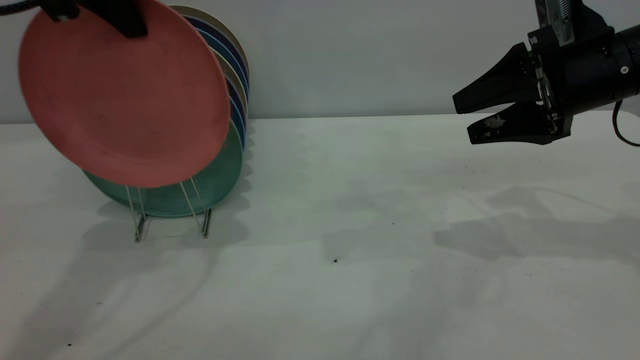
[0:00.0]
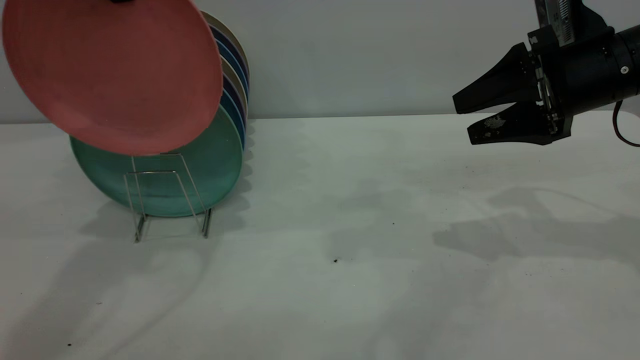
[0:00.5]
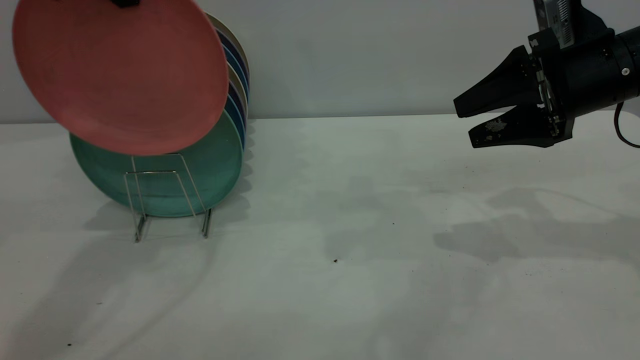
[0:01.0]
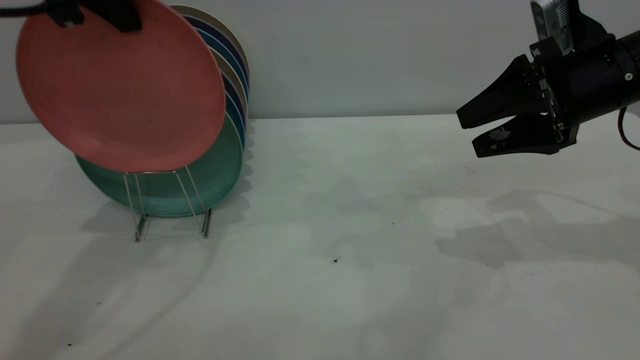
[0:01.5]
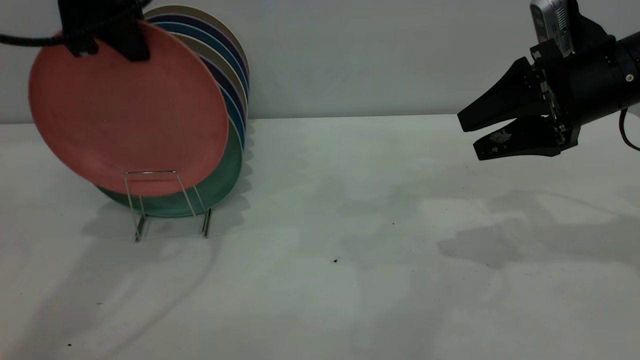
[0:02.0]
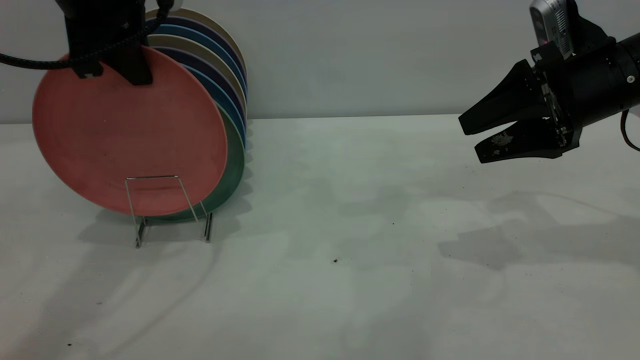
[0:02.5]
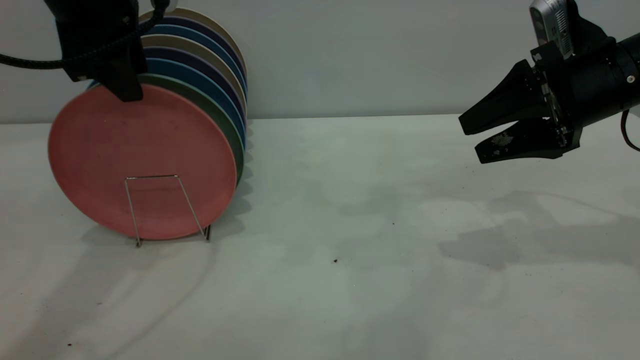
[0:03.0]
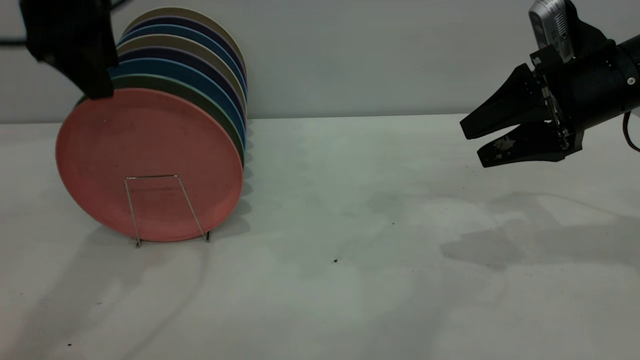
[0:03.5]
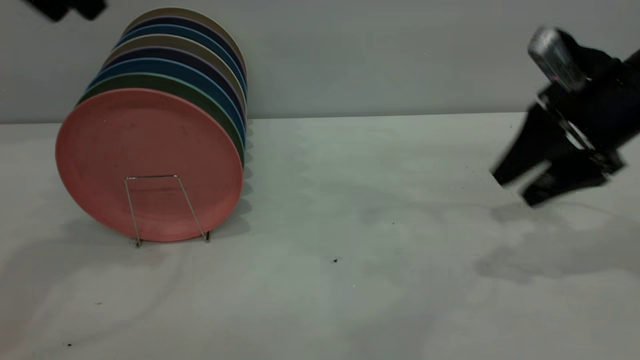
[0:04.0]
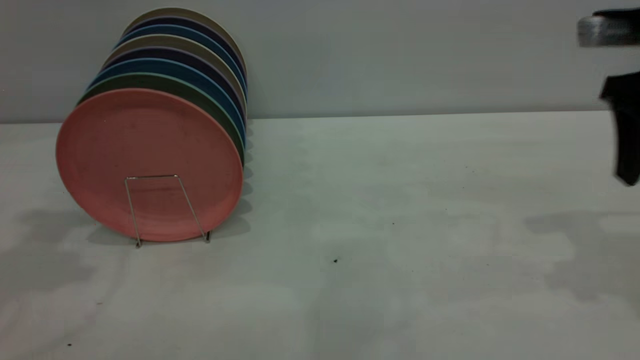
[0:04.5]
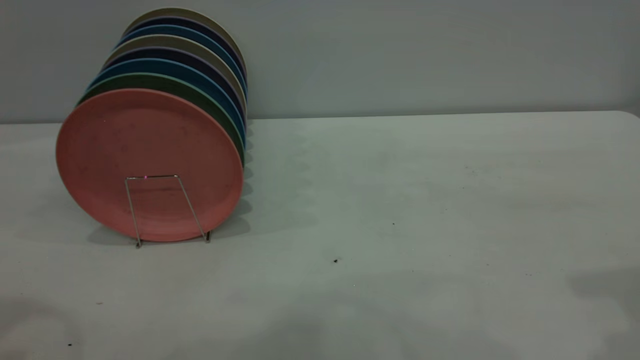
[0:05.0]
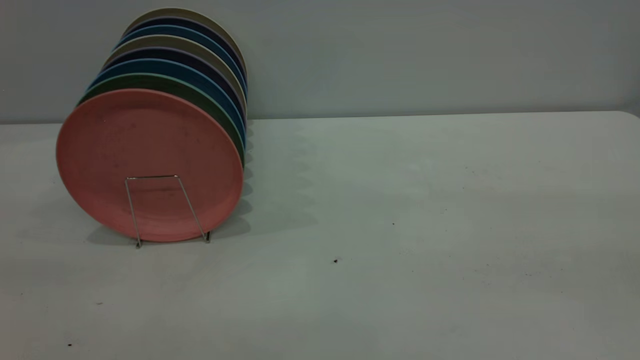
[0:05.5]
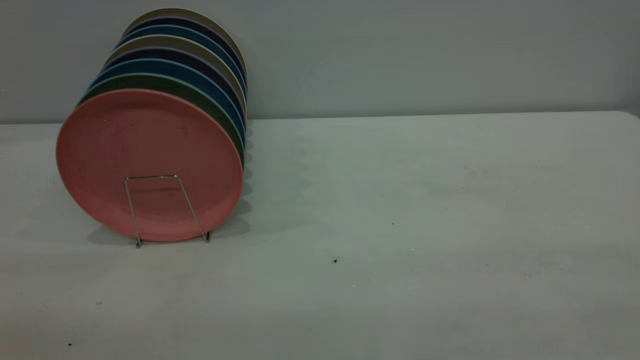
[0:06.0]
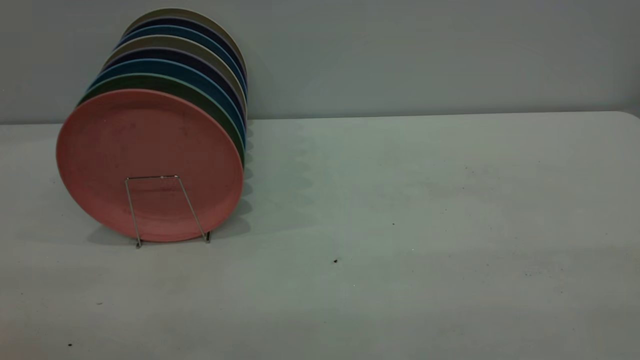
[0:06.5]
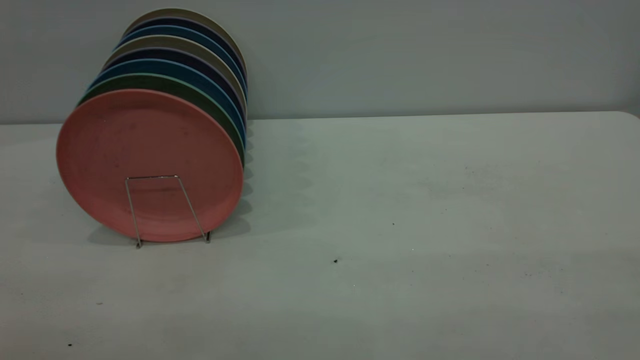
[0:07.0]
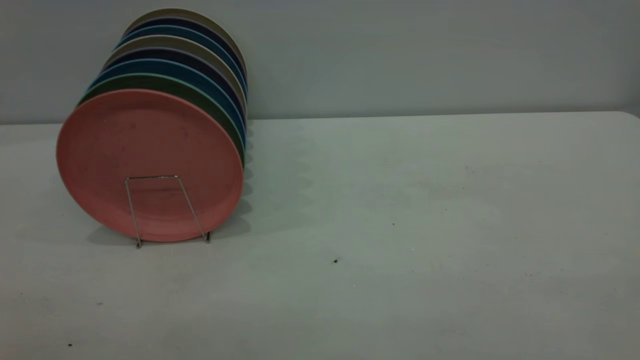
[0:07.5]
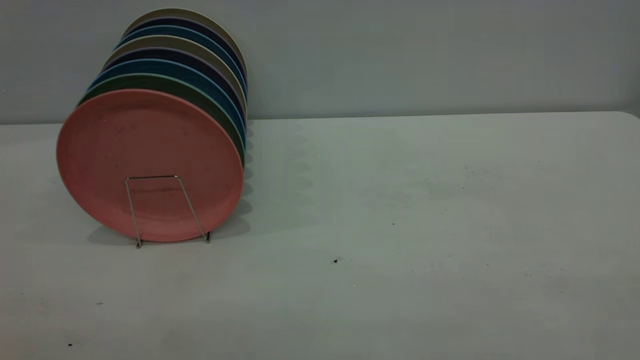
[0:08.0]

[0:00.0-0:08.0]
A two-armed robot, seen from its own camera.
Task of the whole recording: the right gripper grasp the pink plate, the right gripper pass the pink plate to the left gripper, and the left gripper place the pink plate on the plate rack.
Step, 0:00.0 to 0:03.5: Place the plate on the shelf.
0:00.0 to 0:02.0: The grippers move only a little.
0:02.0 to 0:04.0: The left gripper shifts roughly 10 cm to the left and upward, and opens its fingers.
0:04.0 to 0:06.0: The right gripper is displaced backward and upward by some 40 cm.
